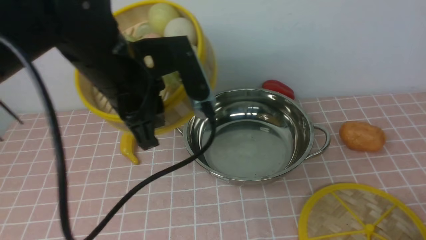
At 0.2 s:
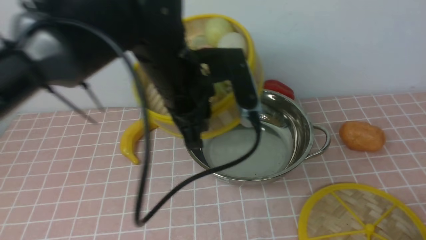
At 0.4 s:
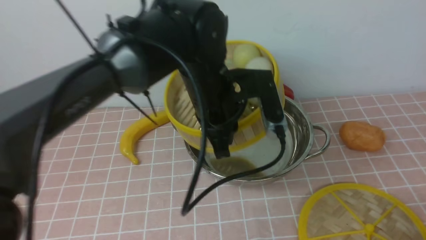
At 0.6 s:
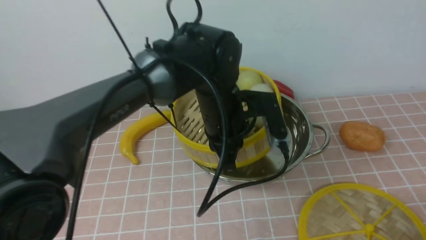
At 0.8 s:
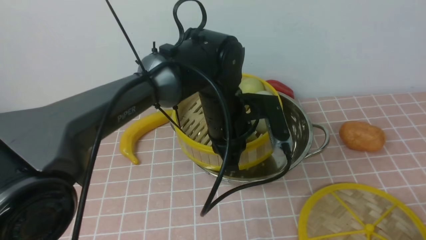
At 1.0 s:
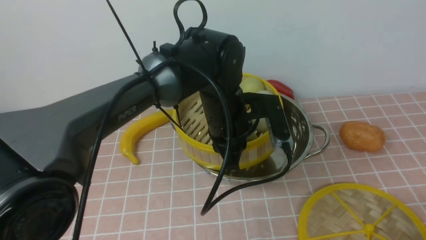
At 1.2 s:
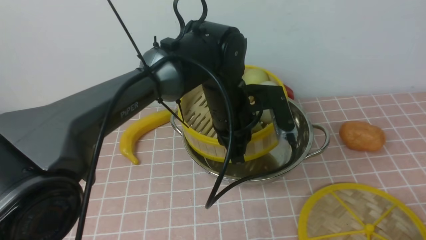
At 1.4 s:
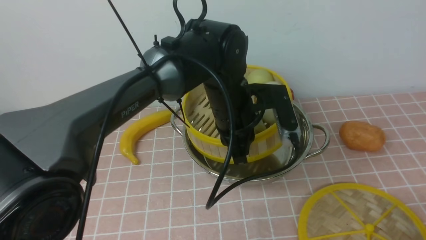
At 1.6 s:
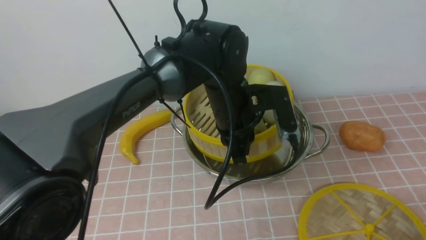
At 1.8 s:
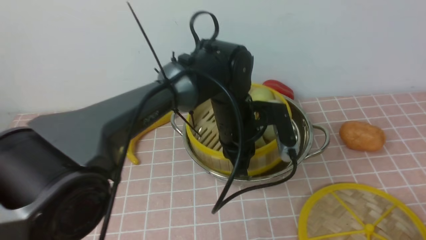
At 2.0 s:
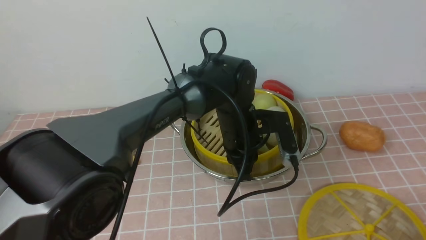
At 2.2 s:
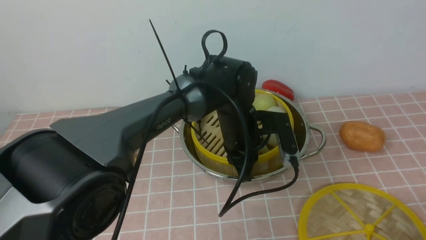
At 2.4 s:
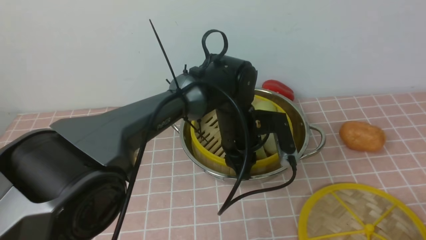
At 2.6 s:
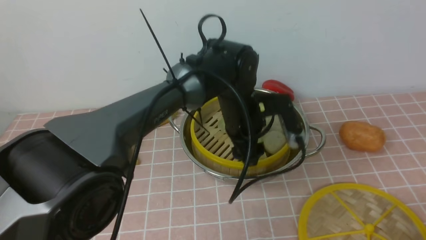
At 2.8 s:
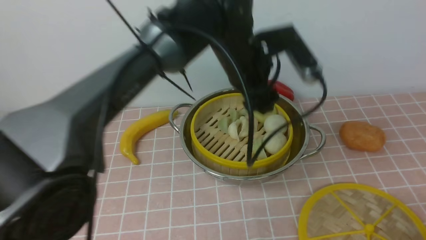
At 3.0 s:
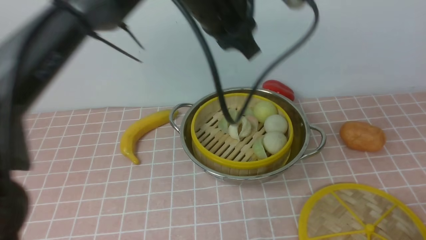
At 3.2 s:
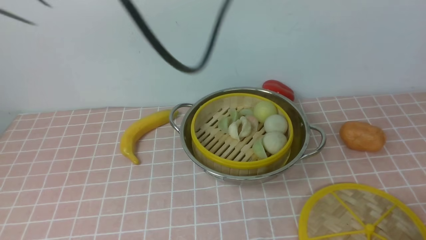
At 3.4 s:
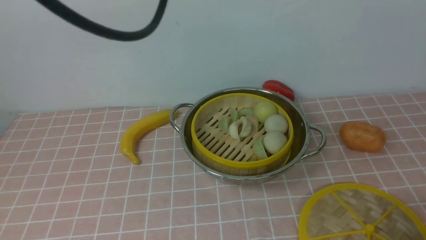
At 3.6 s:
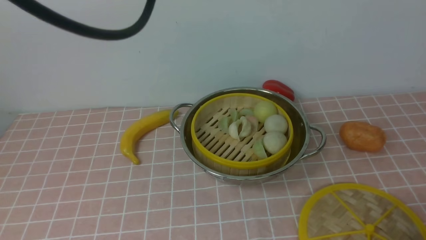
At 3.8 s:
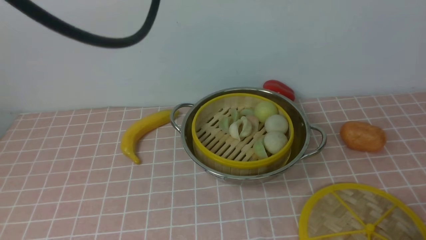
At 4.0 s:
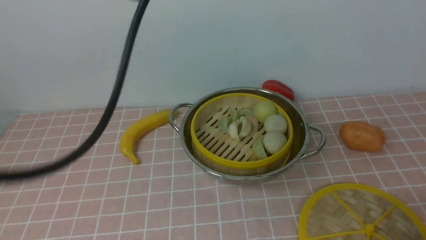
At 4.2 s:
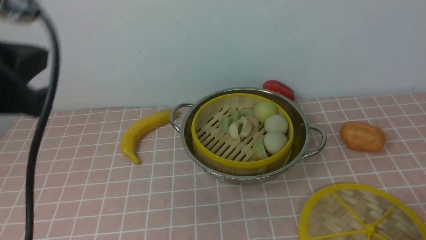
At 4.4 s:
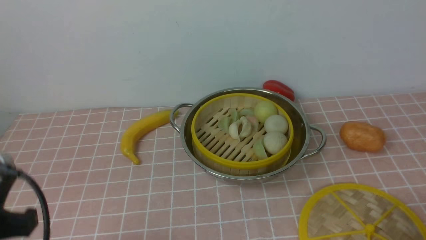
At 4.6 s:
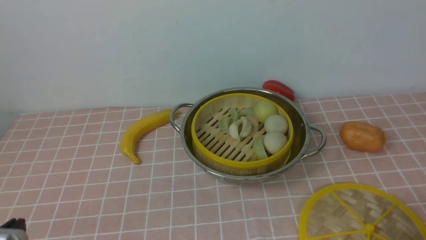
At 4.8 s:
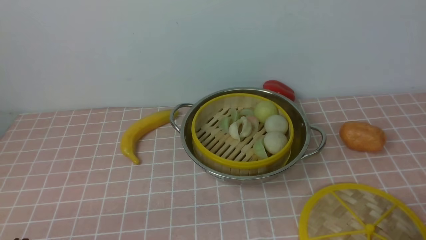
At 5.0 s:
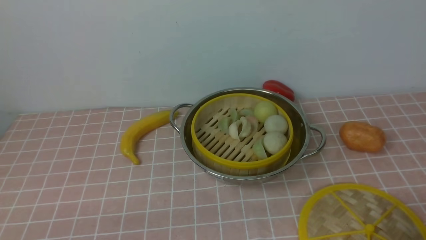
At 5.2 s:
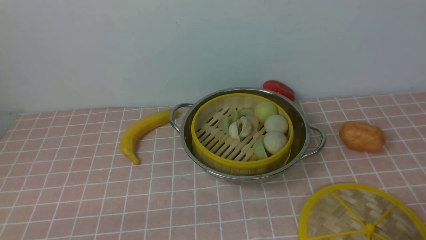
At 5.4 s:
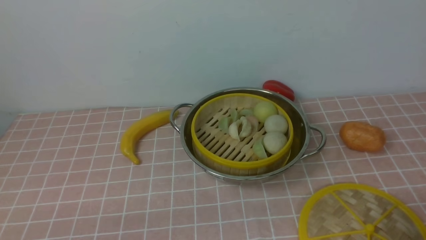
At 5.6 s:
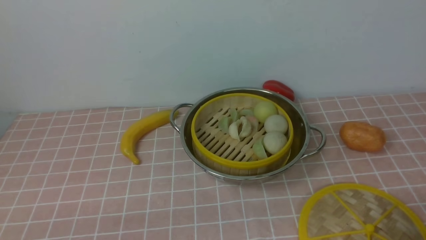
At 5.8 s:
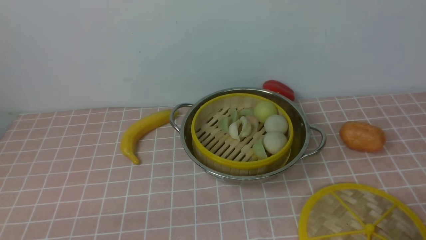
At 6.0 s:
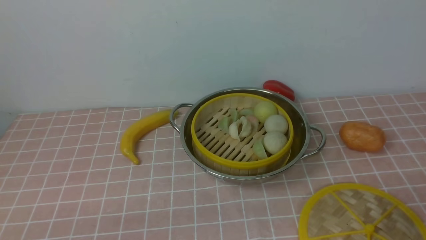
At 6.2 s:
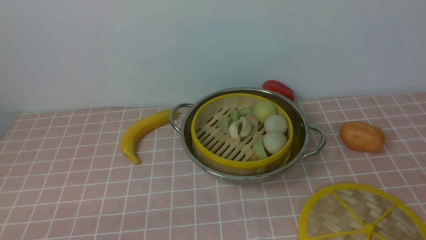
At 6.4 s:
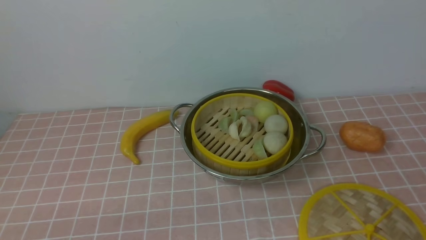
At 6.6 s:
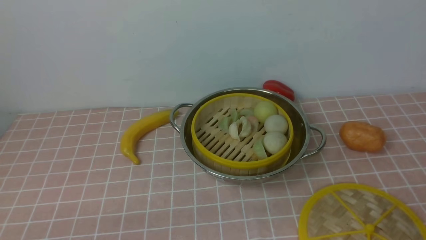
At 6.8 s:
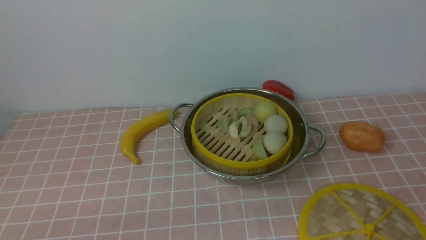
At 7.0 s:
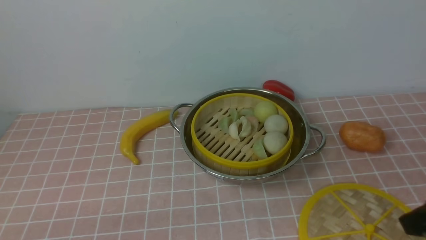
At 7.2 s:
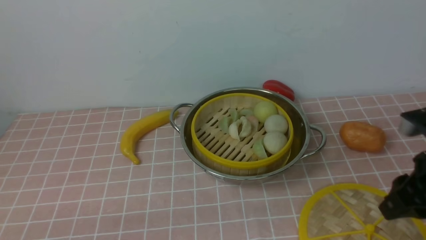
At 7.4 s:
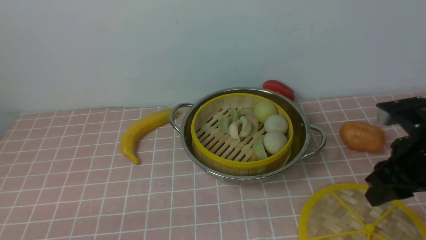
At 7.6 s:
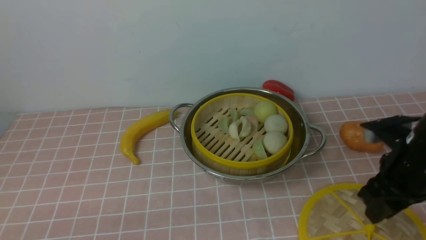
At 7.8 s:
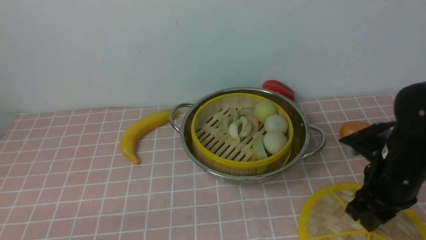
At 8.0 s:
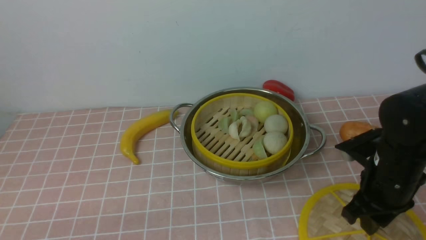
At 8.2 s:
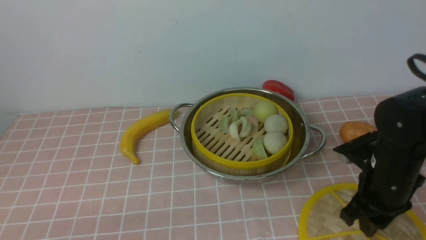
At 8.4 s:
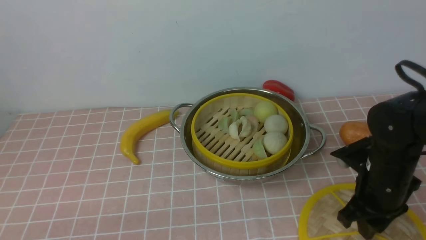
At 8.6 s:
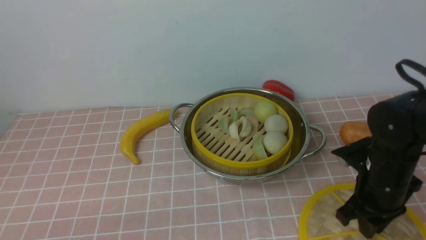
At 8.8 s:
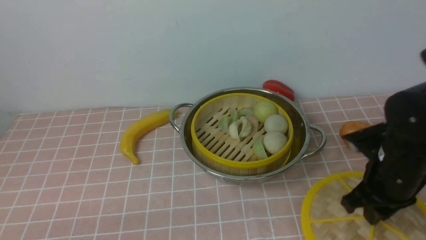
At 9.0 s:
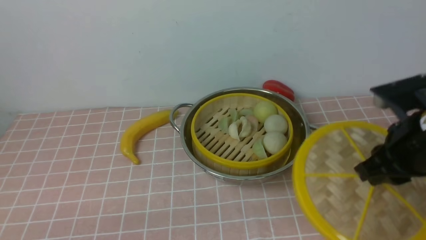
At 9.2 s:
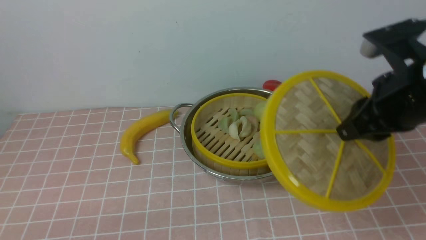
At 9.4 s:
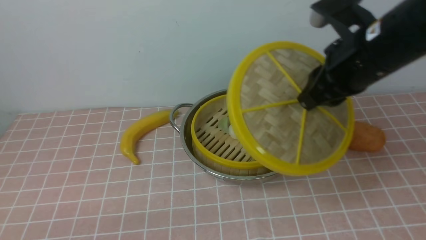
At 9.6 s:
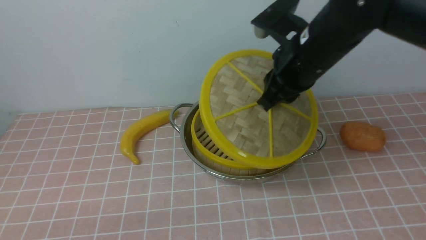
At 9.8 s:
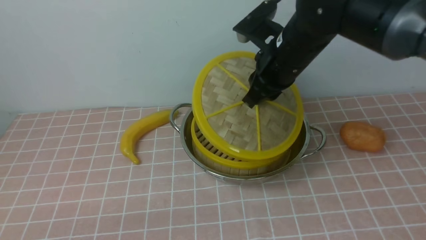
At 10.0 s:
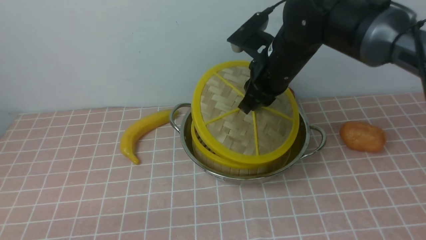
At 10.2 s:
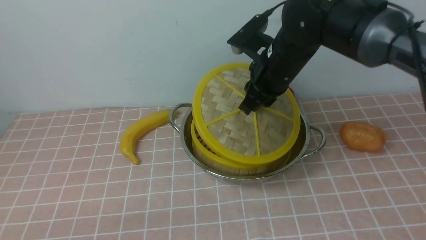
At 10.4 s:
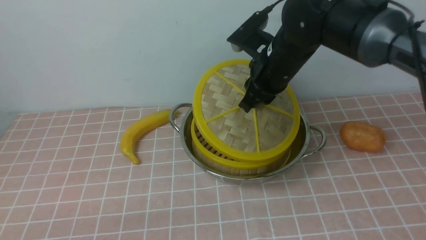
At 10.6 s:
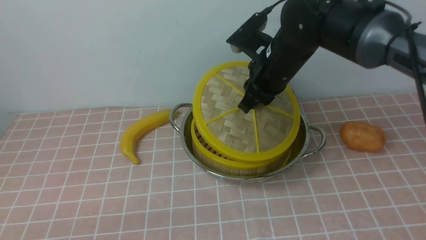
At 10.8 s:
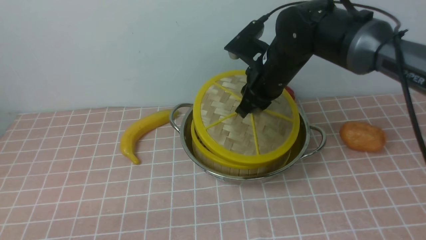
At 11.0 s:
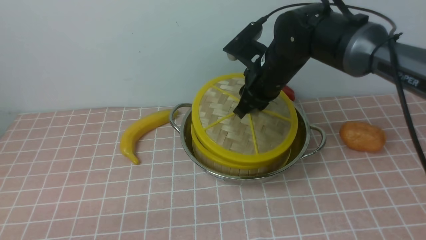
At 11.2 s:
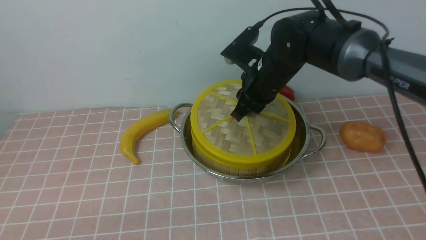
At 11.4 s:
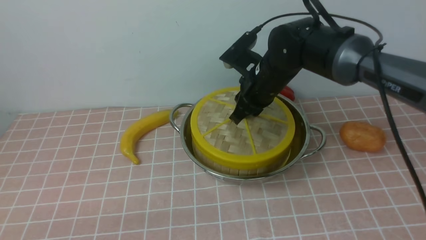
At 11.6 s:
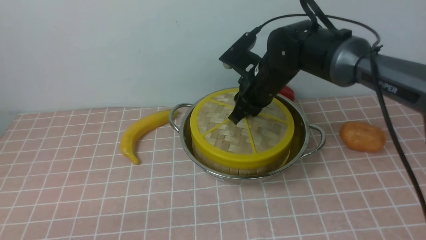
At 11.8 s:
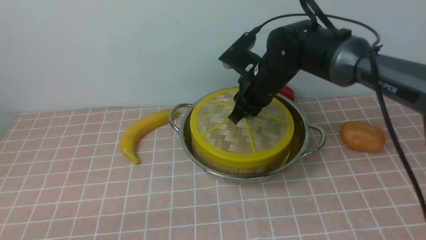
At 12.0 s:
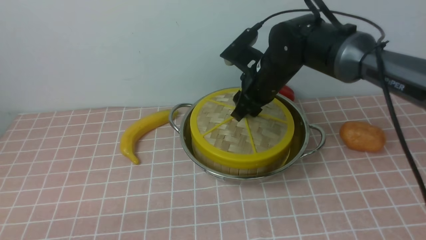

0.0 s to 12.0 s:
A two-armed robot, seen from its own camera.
Task of the whole recording: place the steamer in the pot on the pink tablecloth, and put the lid on the steamer.
Step, 0.0 to 2.6 s: use the left arm to put the steamer into the iron steamer pot in the middle.
Step, 2.8 to 8.6 s: use the right arm to lift the lid of the steamer.
0.0 to 1.6 s: The left gripper heads to the right, downward and forward, covering some 15 cm.
1.6 to 3.0 s: The left gripper is displaced upward by approximately 20 cm, and opens its fingers.
3.0 to 4.4 s: The left gripper travels backward, to the left and downward by some 35 cm, and closes.
4.4 to 6.0 s: The left gripper is displaced downward and backward by about 15 cm.
6.0 to 7.6 s: The right gripper goes some 20 cm forward.
7.6 to 9.0 s: The right gripper shifts about 5 cm upward, and closes.
9.0 to 10.4 s: The right gripper shifts about 20 cm forward and to the left.
10.4 to 12.0 s: The right gripper opens up.

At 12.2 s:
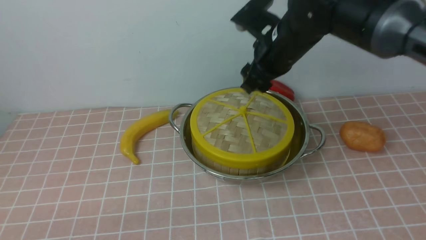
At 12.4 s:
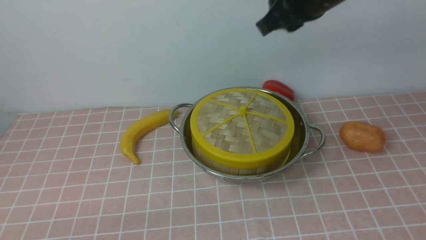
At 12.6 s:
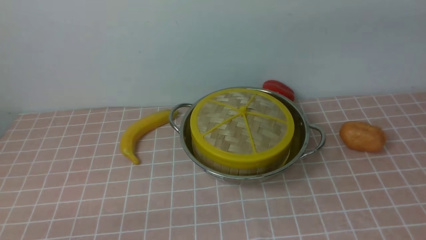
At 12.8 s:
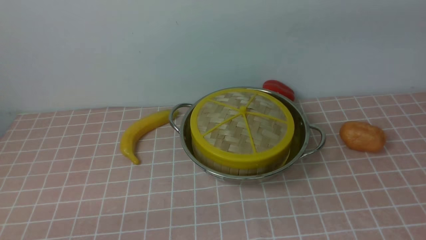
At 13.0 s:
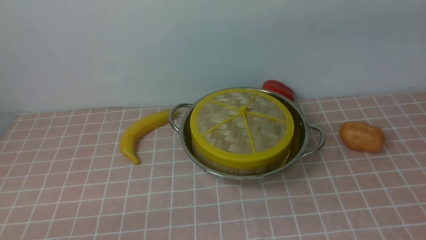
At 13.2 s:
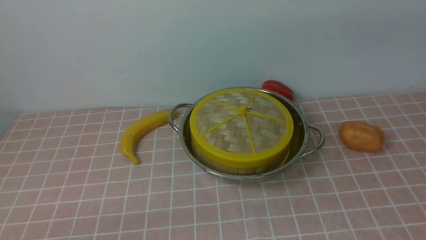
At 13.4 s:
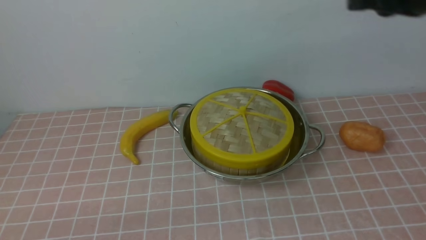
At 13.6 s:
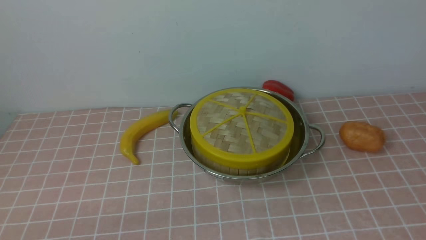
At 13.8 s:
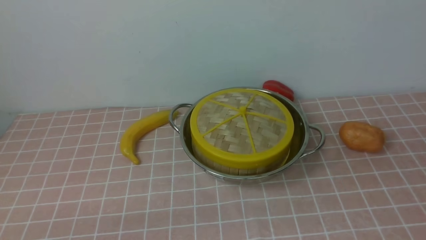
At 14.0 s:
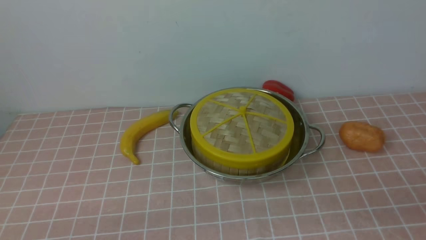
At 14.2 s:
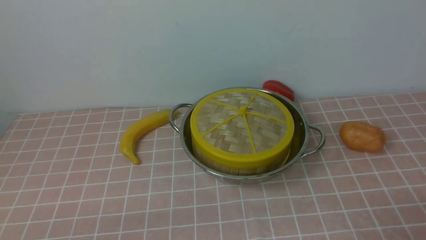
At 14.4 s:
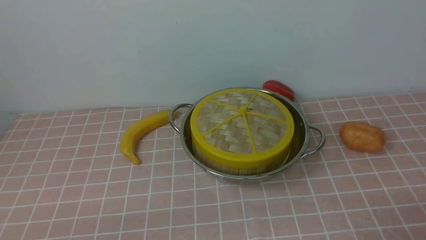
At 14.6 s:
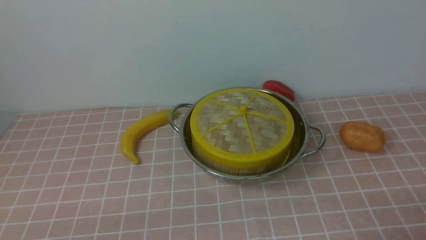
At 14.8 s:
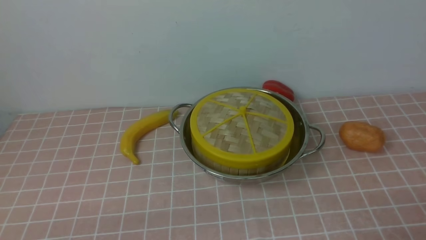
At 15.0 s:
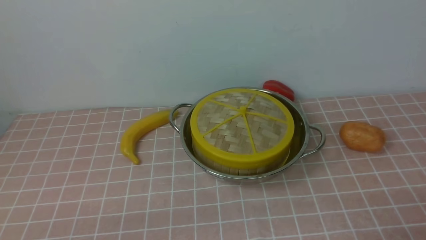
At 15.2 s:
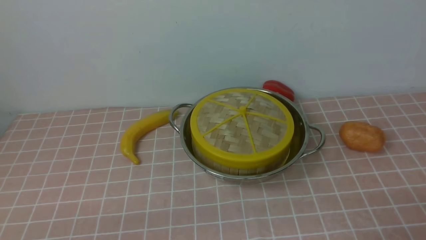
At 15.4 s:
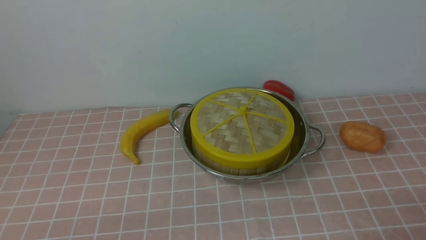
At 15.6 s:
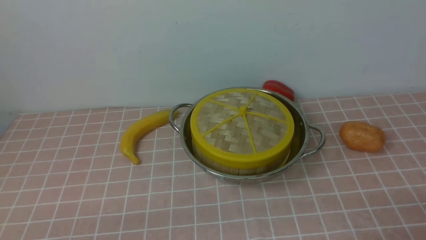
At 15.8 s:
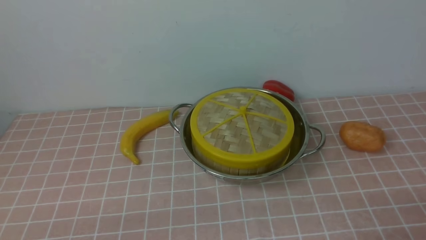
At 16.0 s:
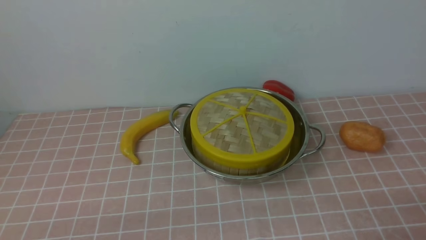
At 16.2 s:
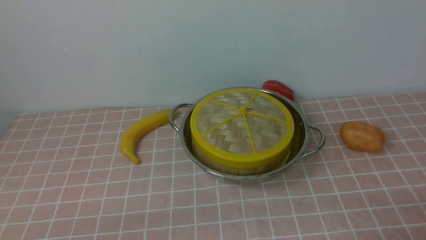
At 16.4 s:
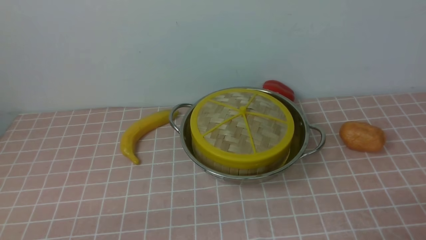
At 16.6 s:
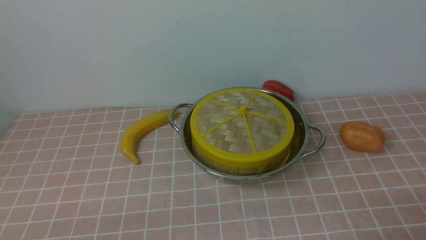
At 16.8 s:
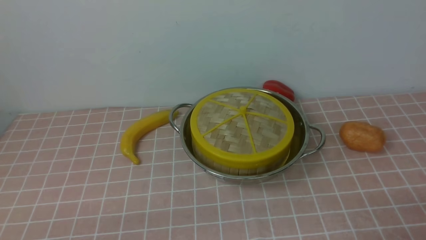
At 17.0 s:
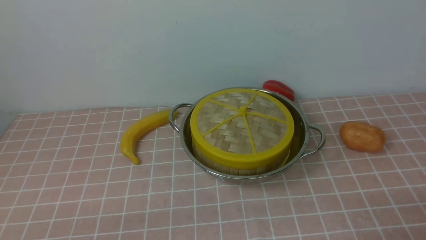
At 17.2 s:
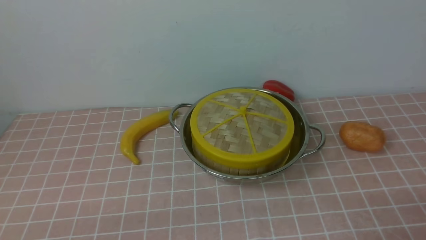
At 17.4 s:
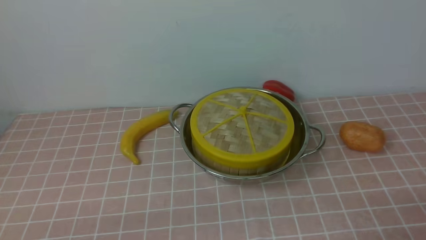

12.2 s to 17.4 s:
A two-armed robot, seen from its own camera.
Task of the whole recording: place the steamer in the pot on the pink tablecloth, and put the lid on the steamer.
12.2 to 14.0 s: The right gripper travels backward and to the right by approximately 40 cm, and closes its fingers.
15.6 to 17.4 s: Both grippers stay put.
